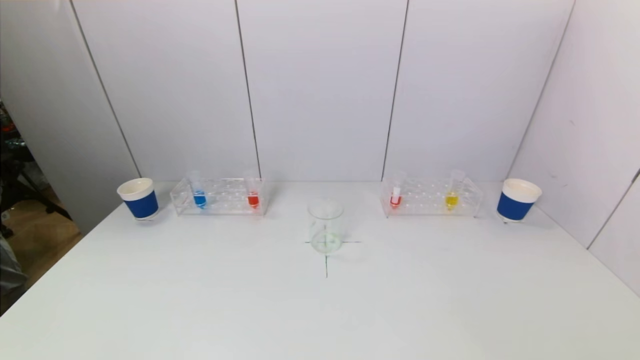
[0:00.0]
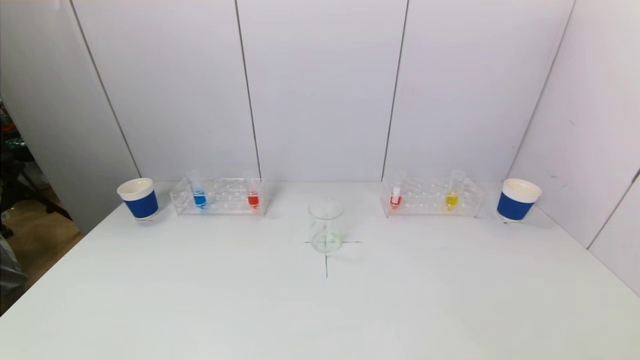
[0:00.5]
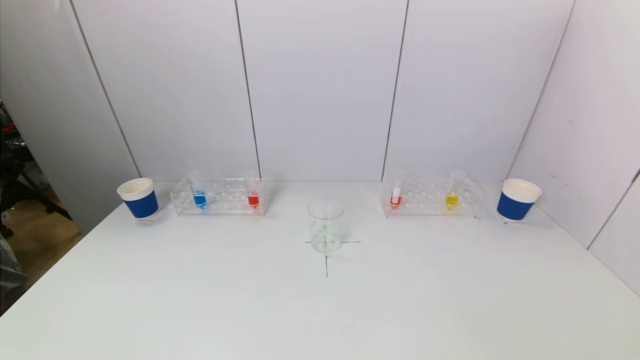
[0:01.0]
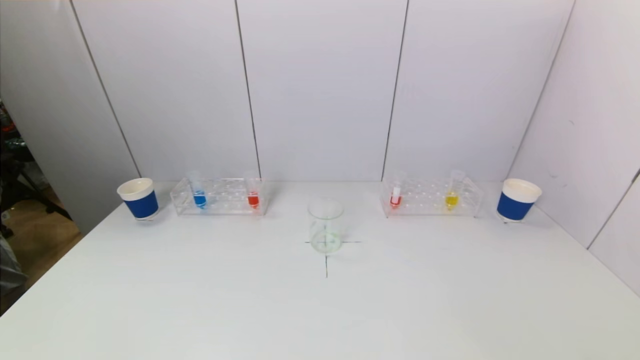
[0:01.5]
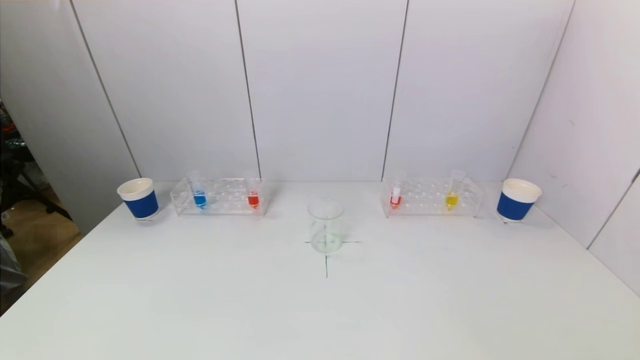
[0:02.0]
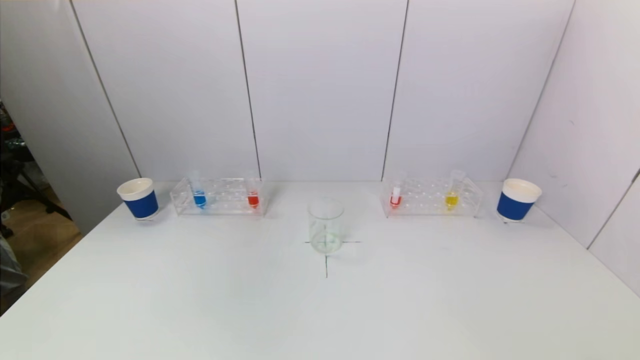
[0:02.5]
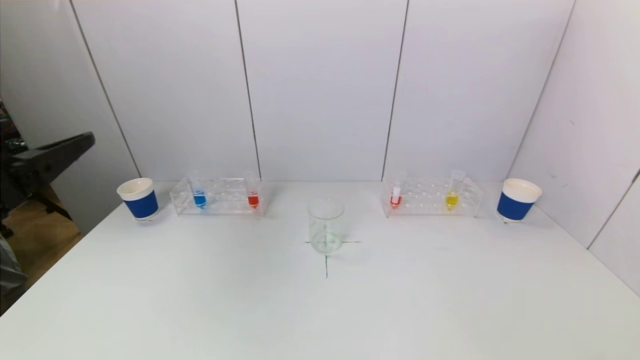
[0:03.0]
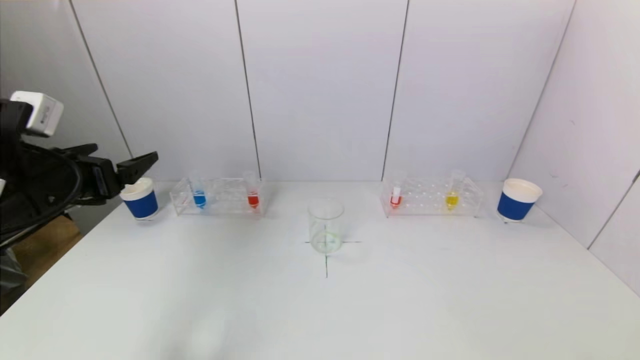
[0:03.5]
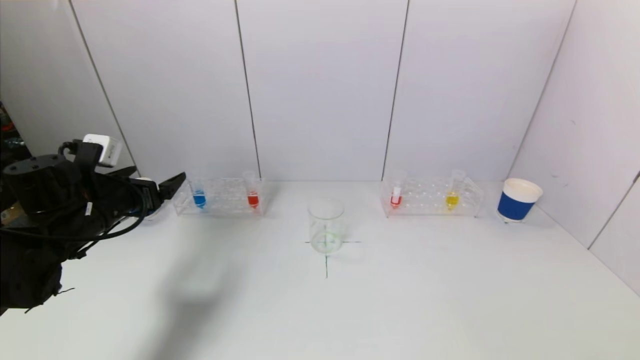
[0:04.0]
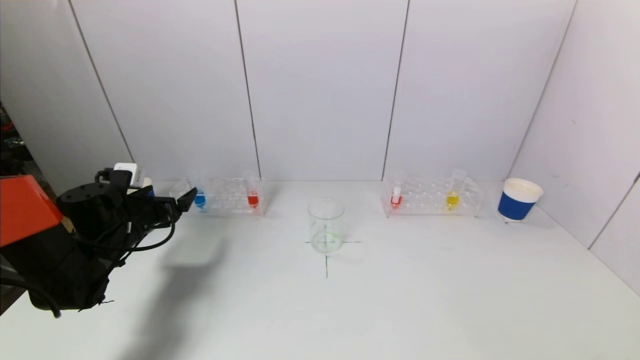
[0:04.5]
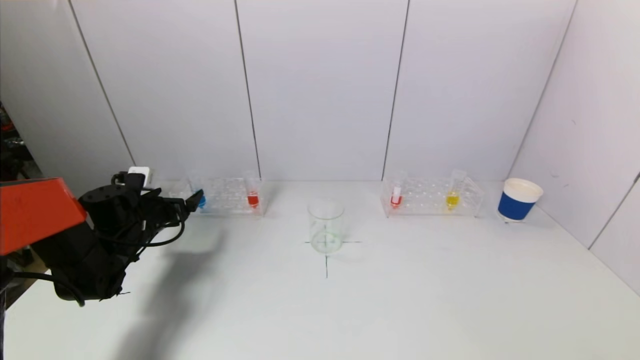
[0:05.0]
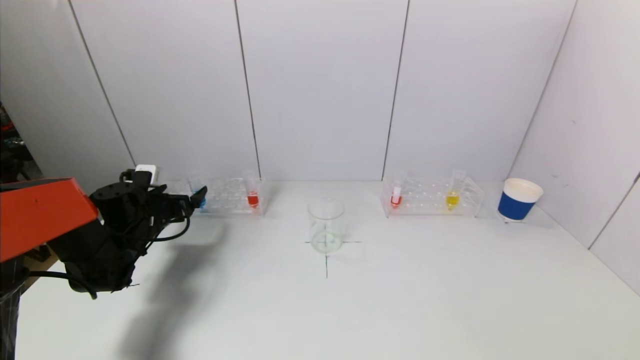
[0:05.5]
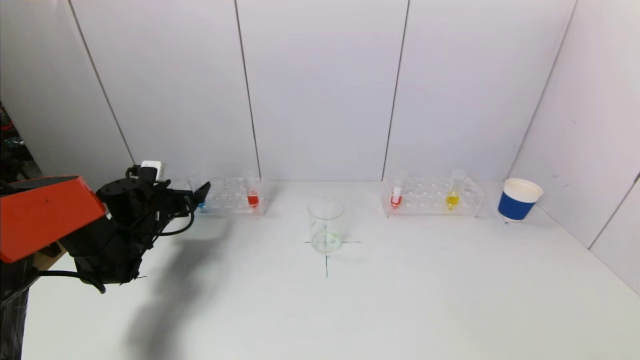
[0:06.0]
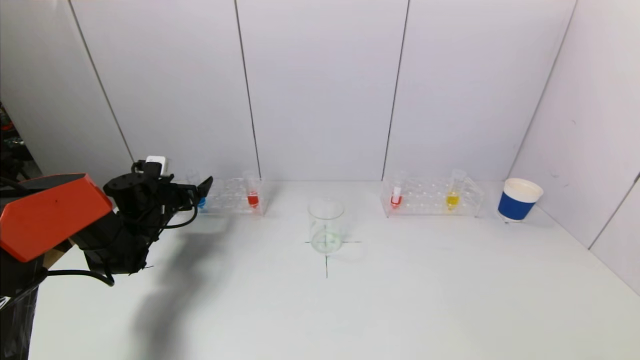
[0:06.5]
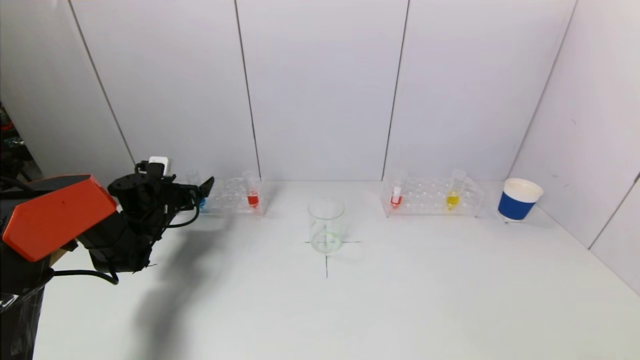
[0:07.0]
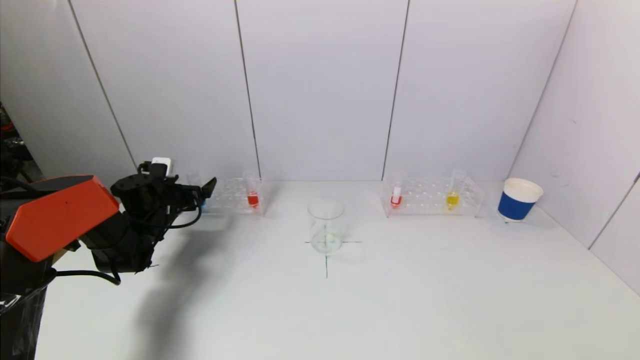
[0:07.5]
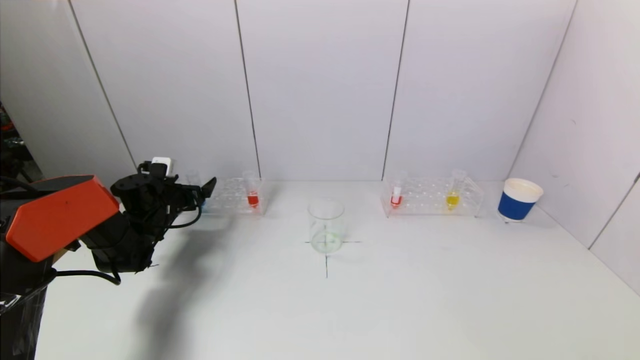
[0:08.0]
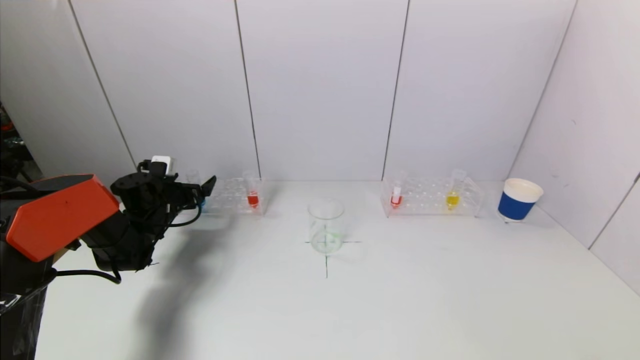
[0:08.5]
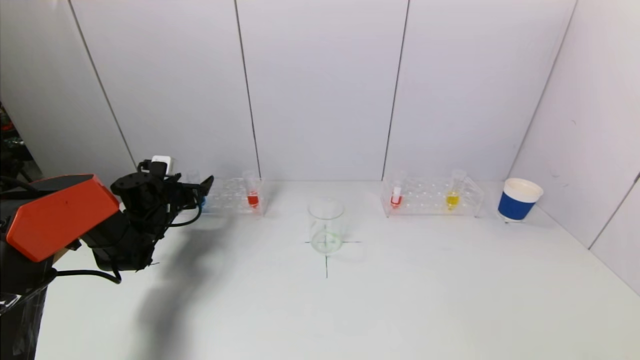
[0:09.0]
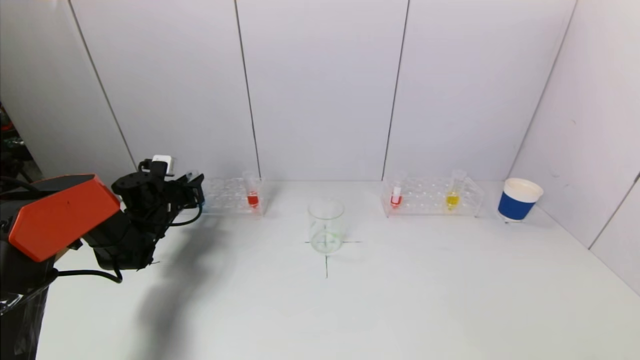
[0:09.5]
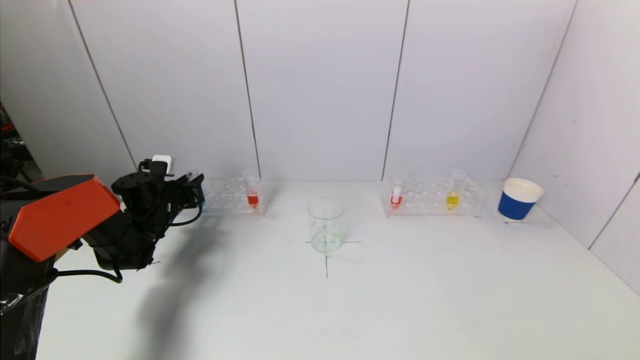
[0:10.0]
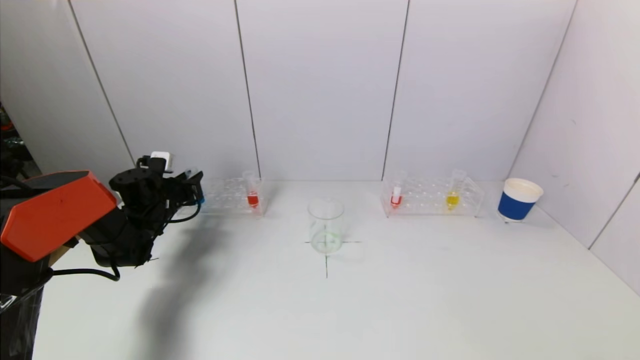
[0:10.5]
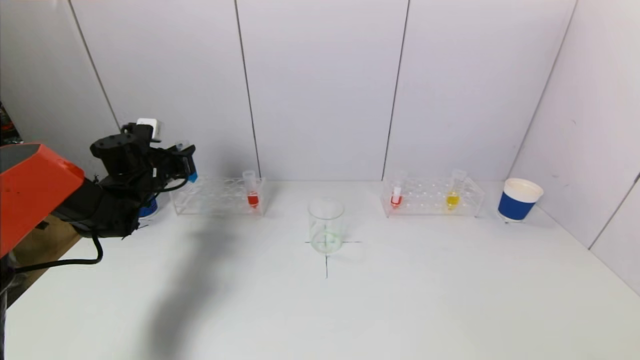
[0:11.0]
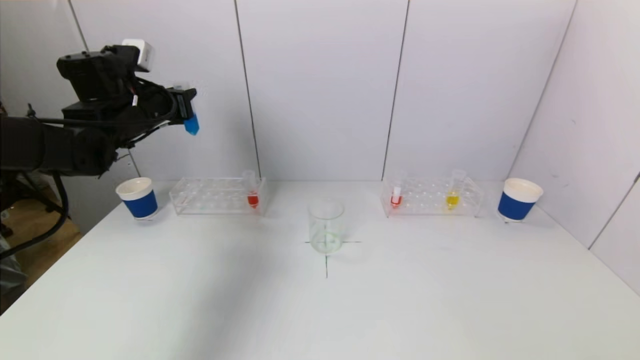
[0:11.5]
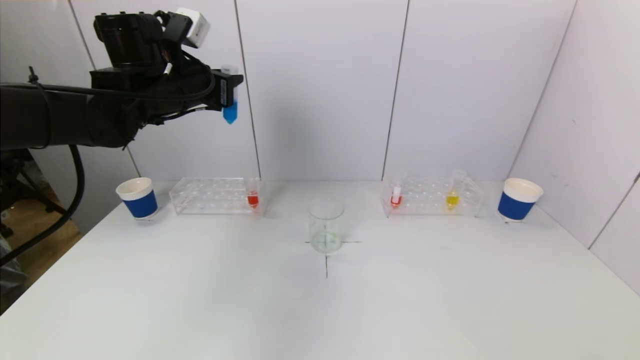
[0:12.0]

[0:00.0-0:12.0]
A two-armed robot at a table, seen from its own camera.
Task of the whole recording: pick up a test tube with pigment on left test tube rack and a test tube with pigment on right test tube rack by grippers and pour them into the beaker.
Step, 0:00.0 to 0:09.5: Grasp the blue reagent with the left gripper.
0:02.0 to 0:04.0: The left gripper moves forward, roughly 35 cm.
0:04.0 to 0:06.0: The left gripper heads forward and downward, covering some 15 cm.
0:06.0 to 0:08.0: The grippers move only a little.
0:08.0 to 0:10.0: The left gripper closes its fingers.
0:10.0 to 0:12.0: The left gripper goes approximately 30 cm upward and to the right.

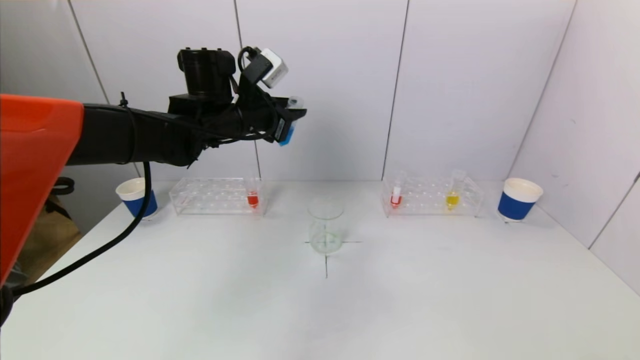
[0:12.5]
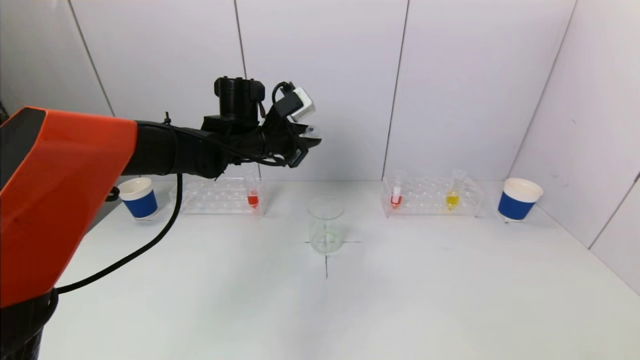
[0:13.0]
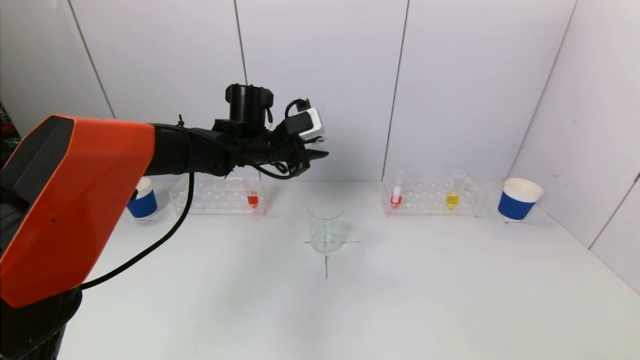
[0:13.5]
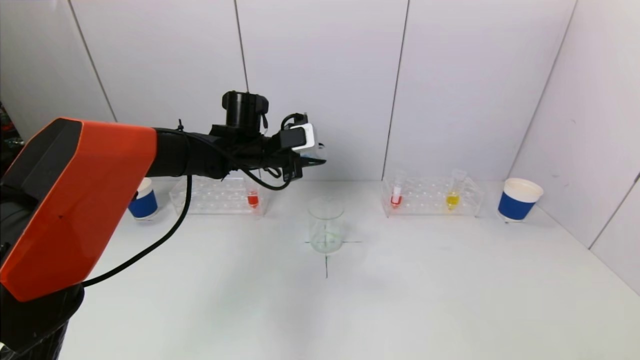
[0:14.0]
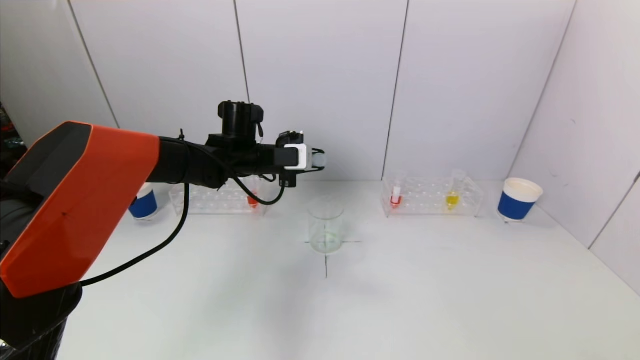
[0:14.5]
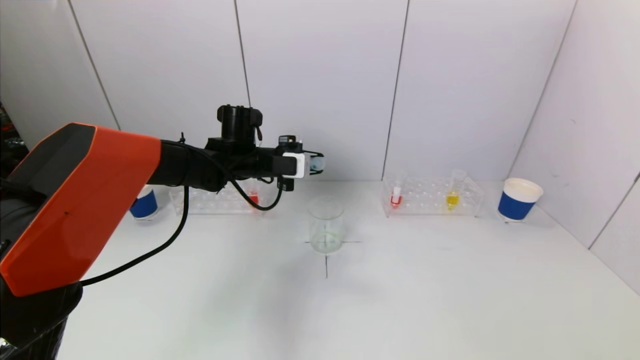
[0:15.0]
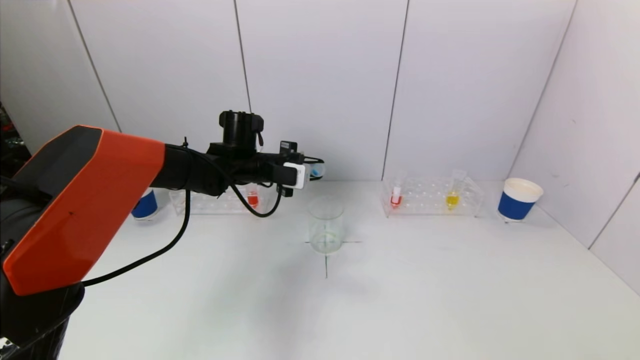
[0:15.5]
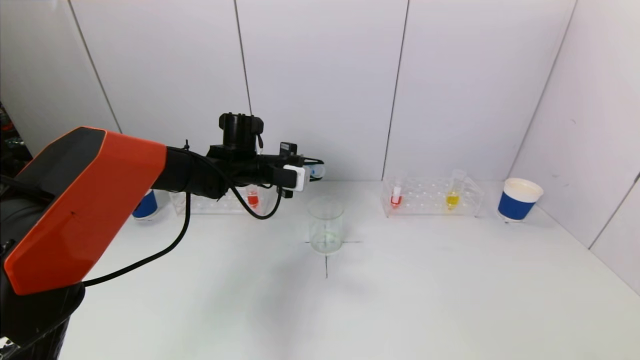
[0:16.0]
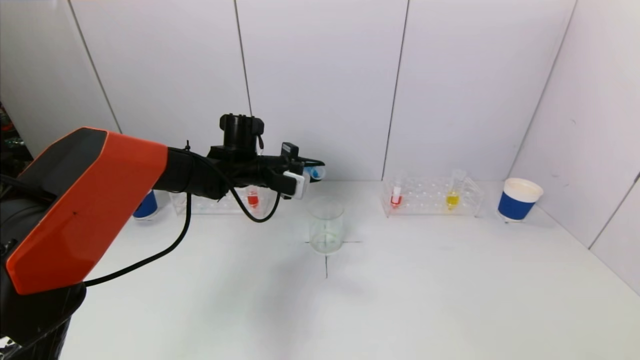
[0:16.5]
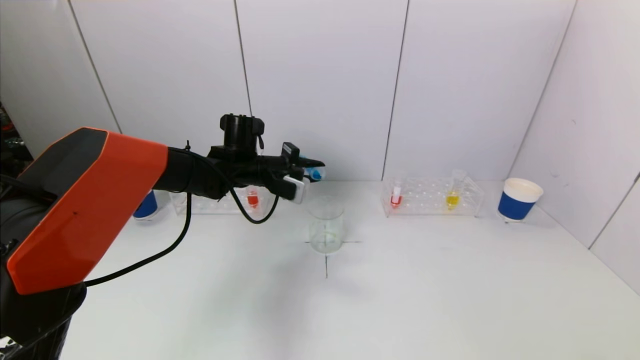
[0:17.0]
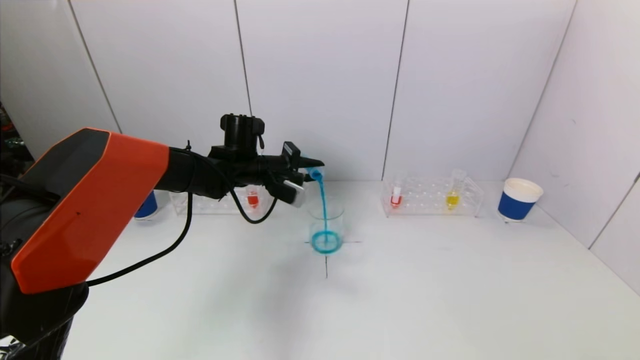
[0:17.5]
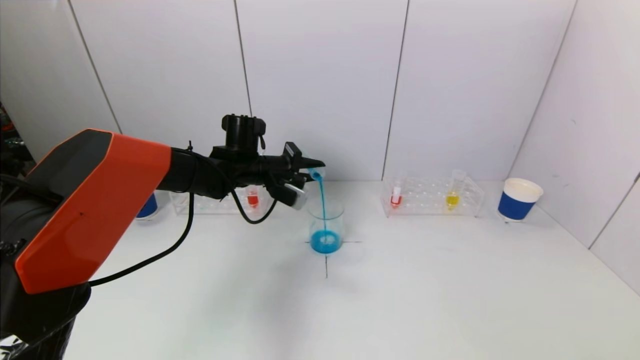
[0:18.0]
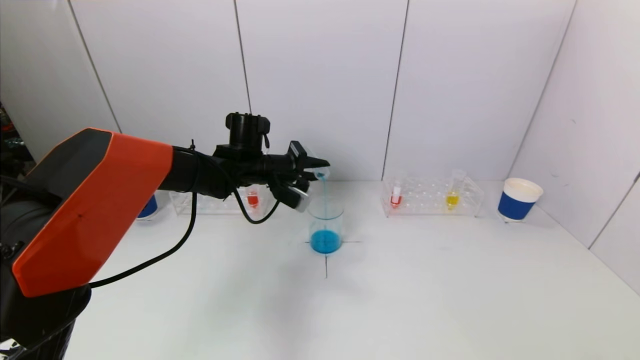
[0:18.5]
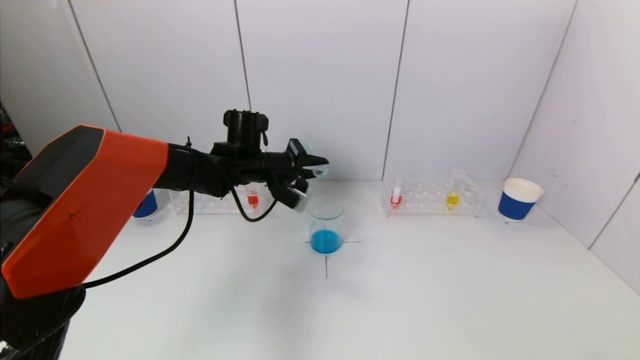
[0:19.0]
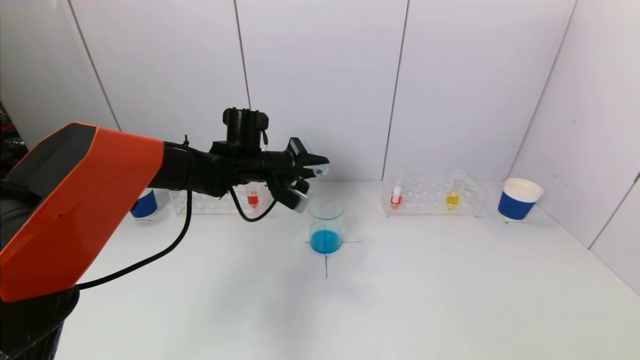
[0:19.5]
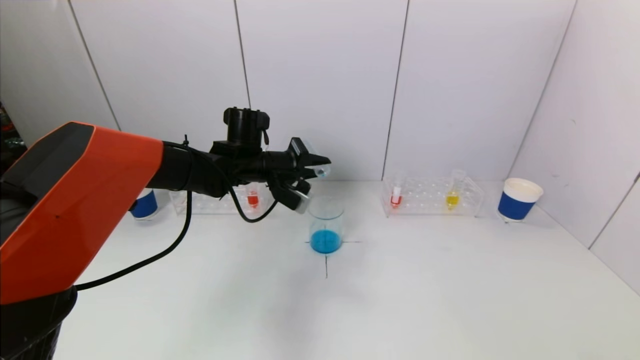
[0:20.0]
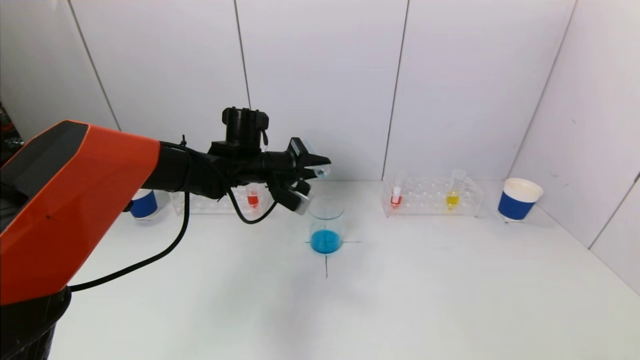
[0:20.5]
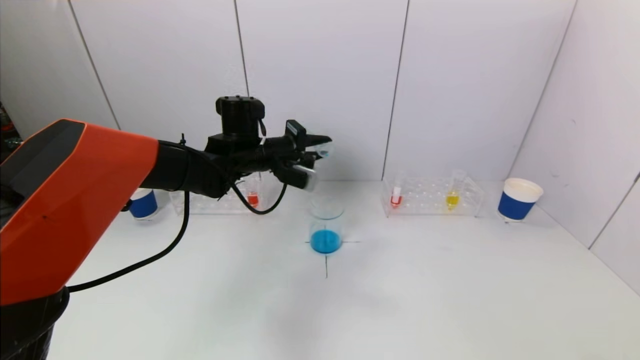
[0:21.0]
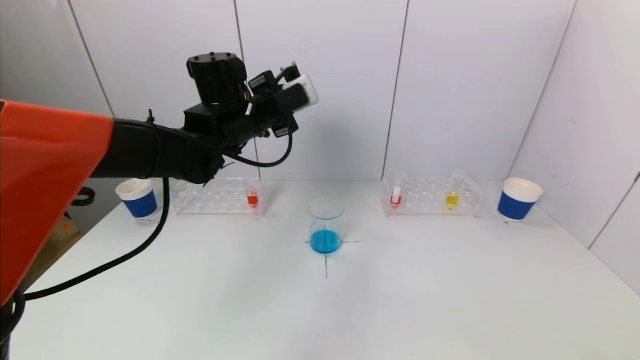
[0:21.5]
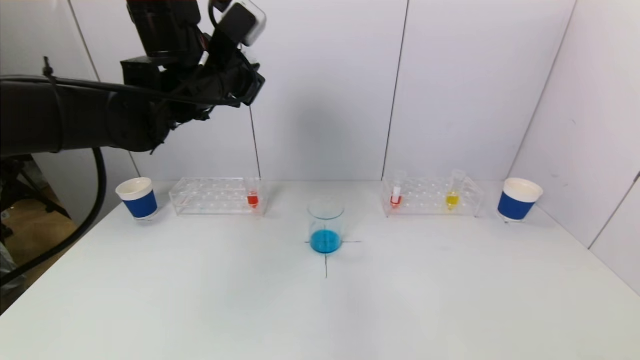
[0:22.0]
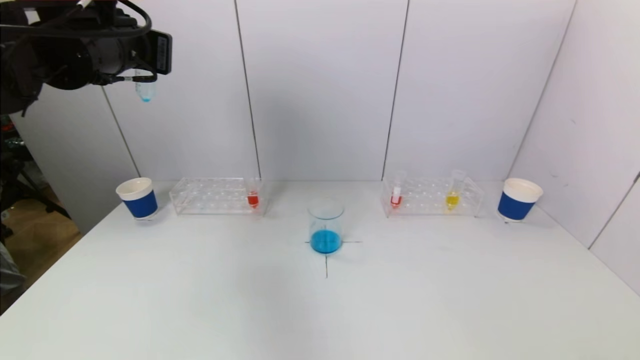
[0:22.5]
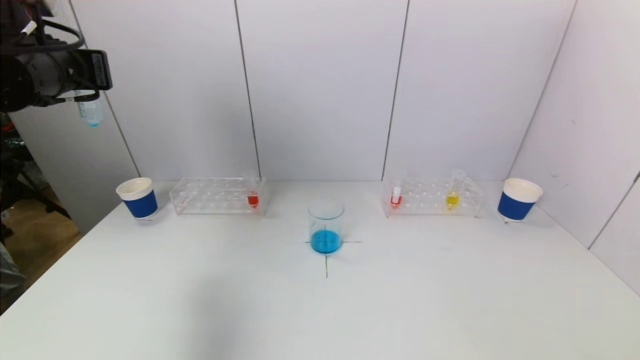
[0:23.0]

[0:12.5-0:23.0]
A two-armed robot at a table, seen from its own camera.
Task of the whole recording: pick up a test tube with pigment on left test tube rack and a test tube with pigment on right test tube rack by grippers and pour them into the beaker.
Step, 0:12.5 to 0:19.5: Pour the blue reagent into the graduated cylinder with the left gripper.
0:12.5 to 0:14.5: The left gripper is displaced downward by roughly 10 cm.
0:14.5 to 0:16.5: There are only small adjustments of the grippers.
0:19.0 to 0:21.0: The grippers make only small movements.
0:21.0 to 0:23.0: The left gripper shifts about 25 cm to the left, upward and backward.
